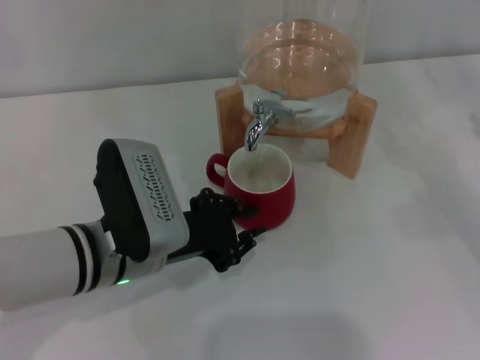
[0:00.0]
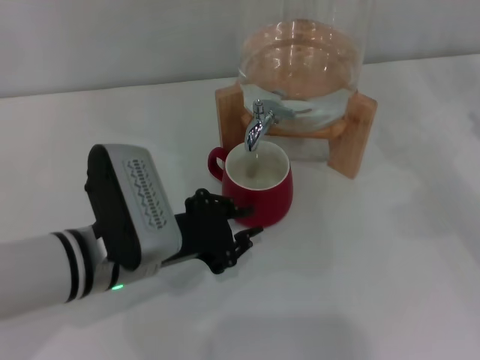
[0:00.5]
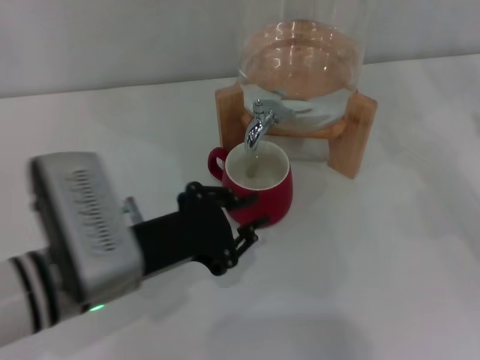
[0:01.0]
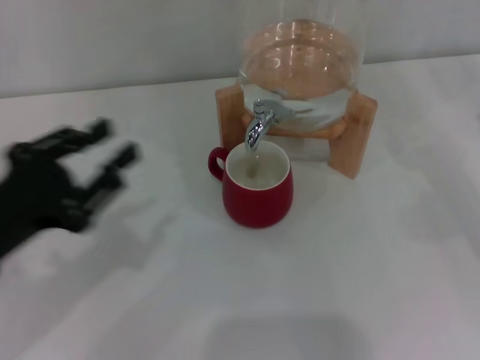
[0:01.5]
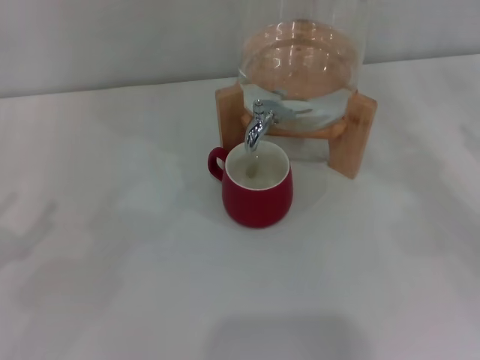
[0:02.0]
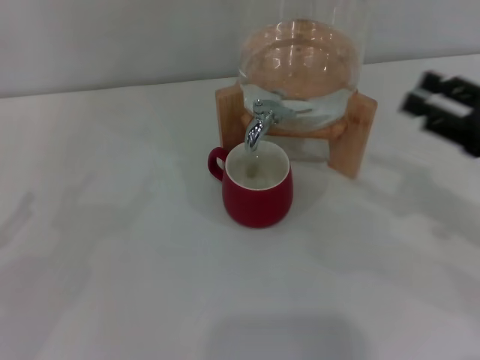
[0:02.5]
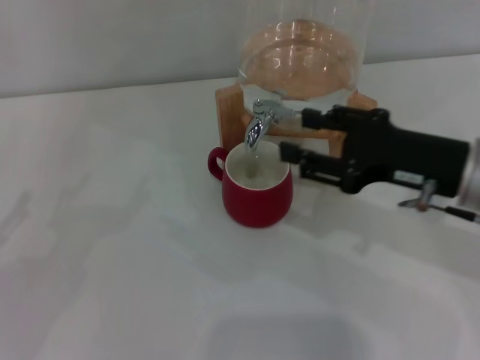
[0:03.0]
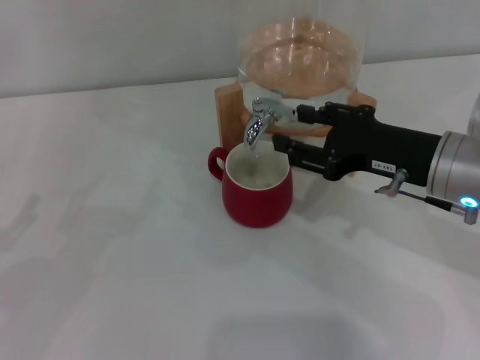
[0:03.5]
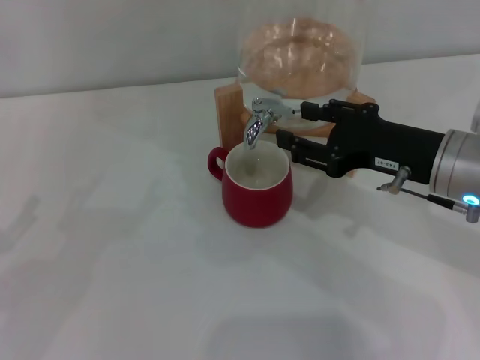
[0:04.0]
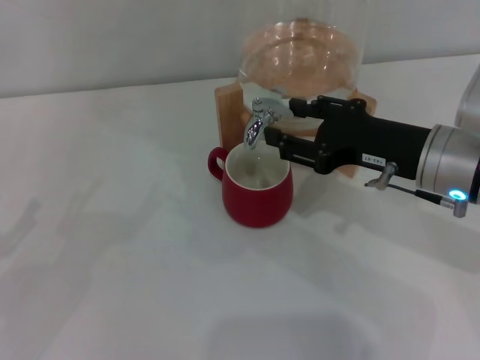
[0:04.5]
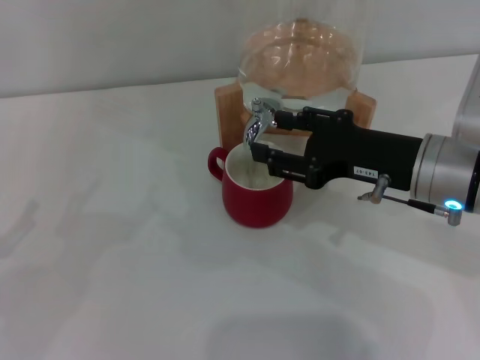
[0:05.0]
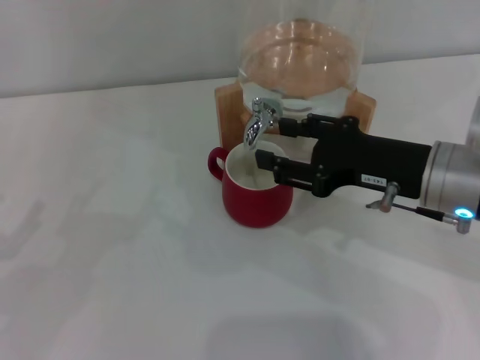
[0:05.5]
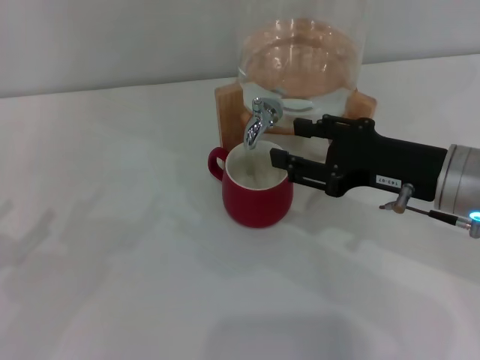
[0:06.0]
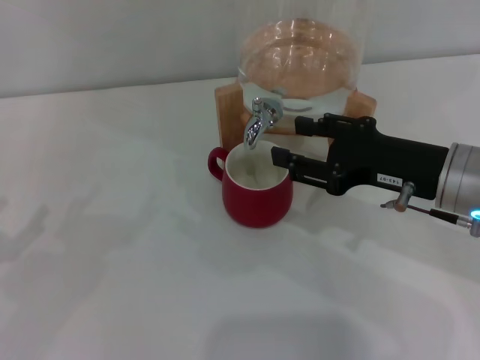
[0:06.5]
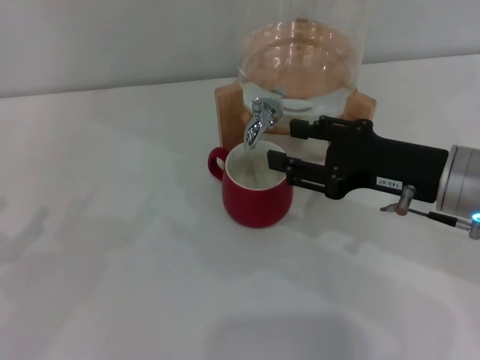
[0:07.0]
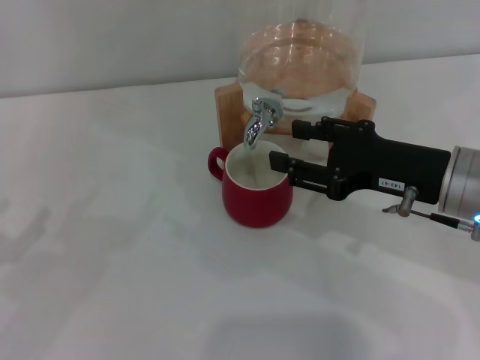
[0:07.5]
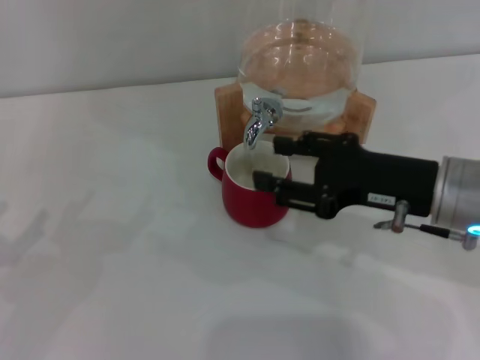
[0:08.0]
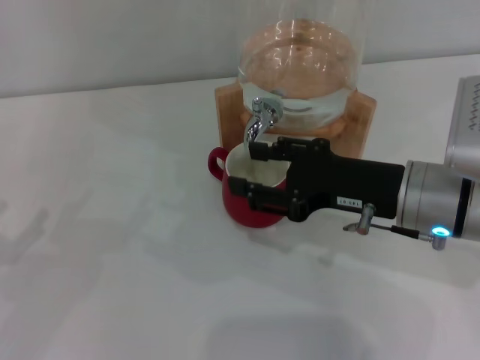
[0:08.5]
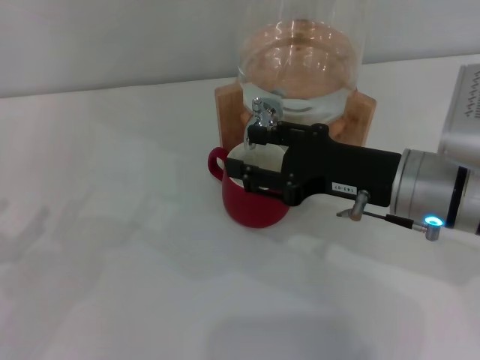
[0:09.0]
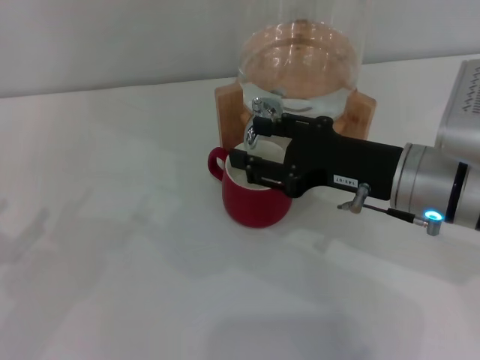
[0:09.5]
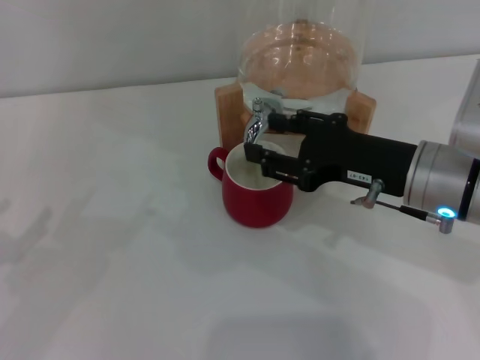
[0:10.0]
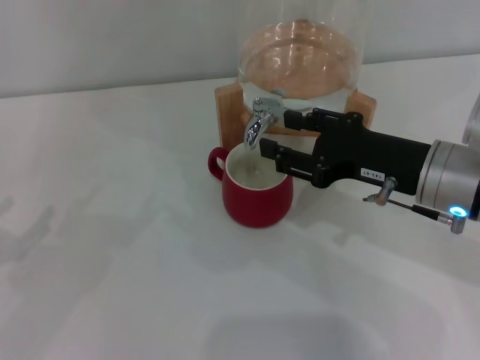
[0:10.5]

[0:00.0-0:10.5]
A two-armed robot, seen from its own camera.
Task of the whole recording: the left gripper pick up the red cup and place it horizontally under the faucet, the right gripper turn on the faucet to fill the cup, and then turn off the faucet.
Step, 0:01.5 to 0:09.0: Open the dispenser valve and fill the cup with water with the right gripper.
0:00.0 to 0:02.0: The left gripper shifts some 25 cm to the left, and opens up.
0:02.0 to 0:04.0: The right gripper shifts some 20 cm to the left.
0:04.0 to 0:10.5: There are only small adjustments of the grippers.

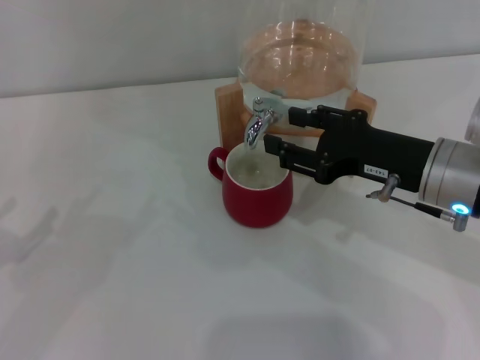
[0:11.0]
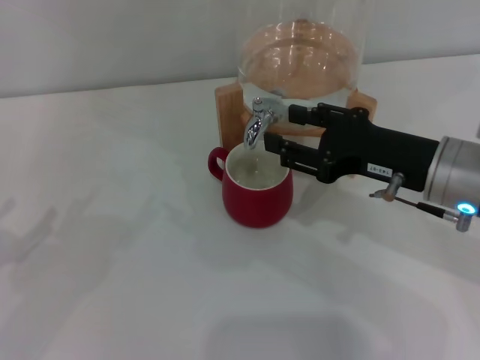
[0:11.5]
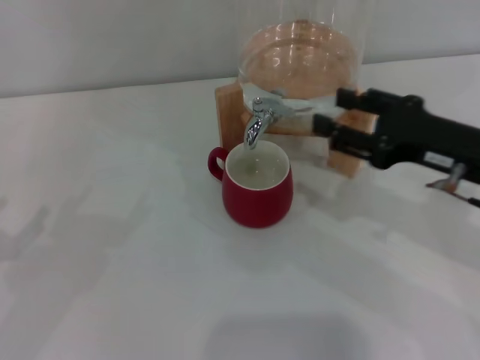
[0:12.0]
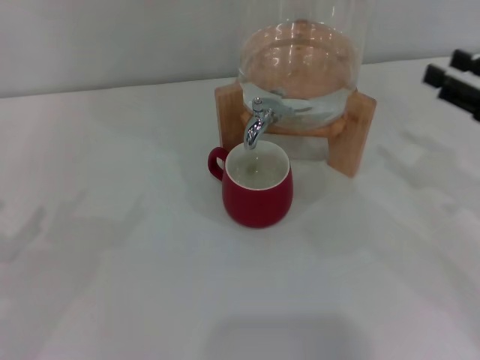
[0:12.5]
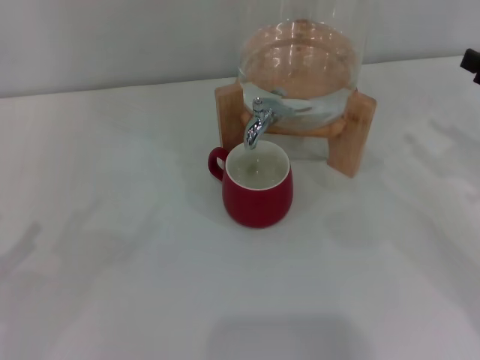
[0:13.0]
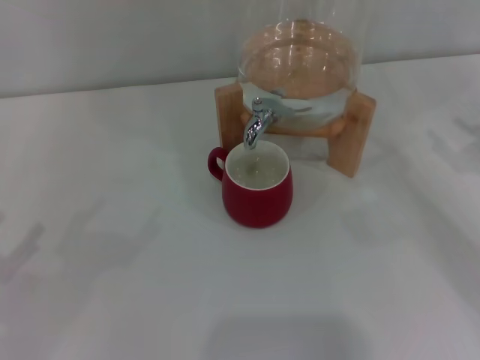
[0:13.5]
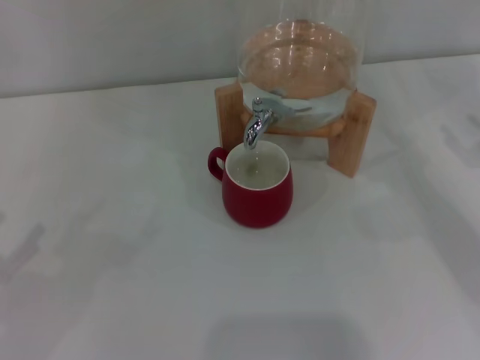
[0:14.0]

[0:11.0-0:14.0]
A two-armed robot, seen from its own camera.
Task of the whole recording: the left gripper pick up the red cup and place it horizontally under the faucet, the right gripper turn on the faucet to fill the cup, and then turn off the faucet.
0:11.0 to 0:12.5: The right gripper heads to the right, covering about 10 cm.
0:12.5 to 0:14.0: The right gripper travels to the right by roughly 5 cm.
